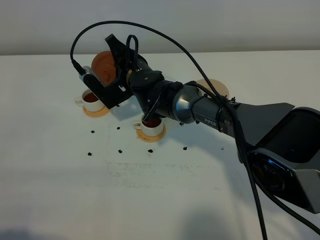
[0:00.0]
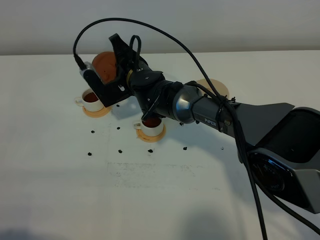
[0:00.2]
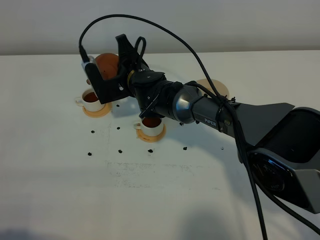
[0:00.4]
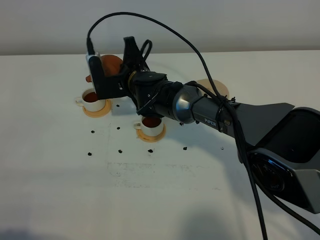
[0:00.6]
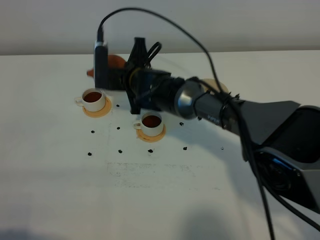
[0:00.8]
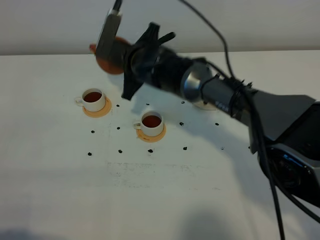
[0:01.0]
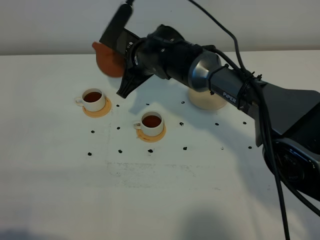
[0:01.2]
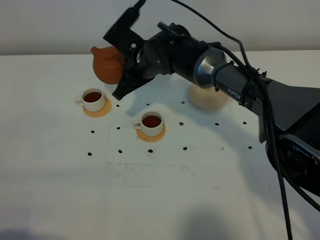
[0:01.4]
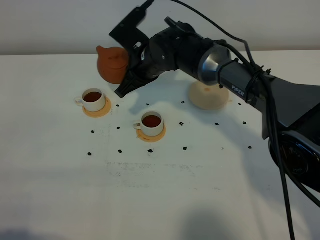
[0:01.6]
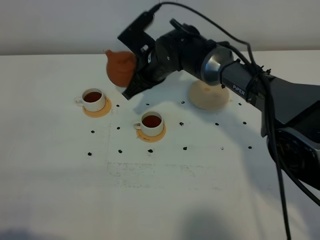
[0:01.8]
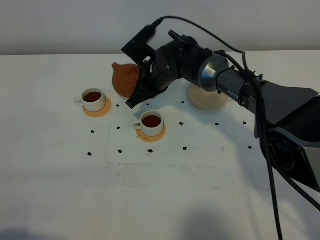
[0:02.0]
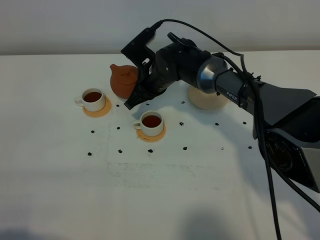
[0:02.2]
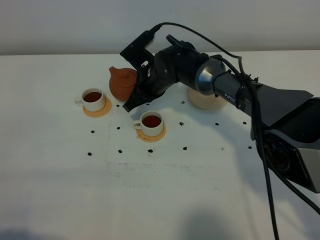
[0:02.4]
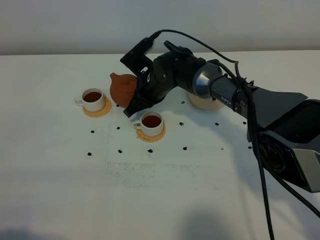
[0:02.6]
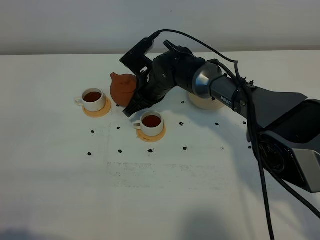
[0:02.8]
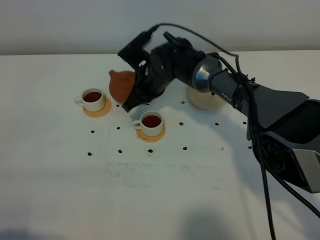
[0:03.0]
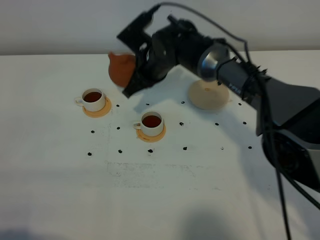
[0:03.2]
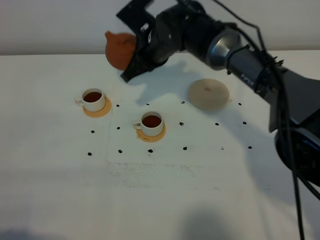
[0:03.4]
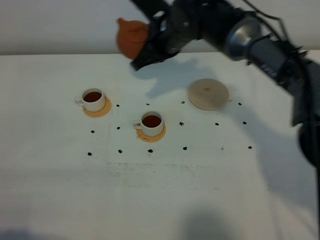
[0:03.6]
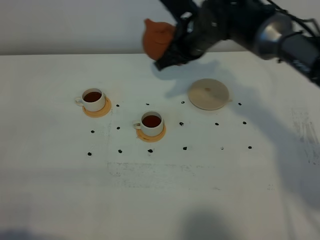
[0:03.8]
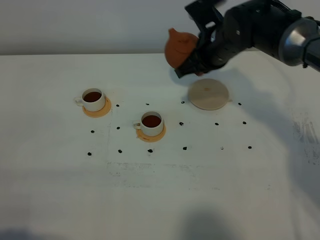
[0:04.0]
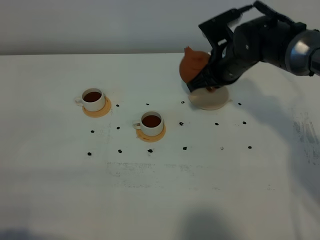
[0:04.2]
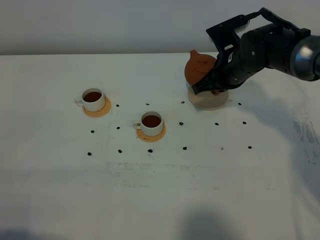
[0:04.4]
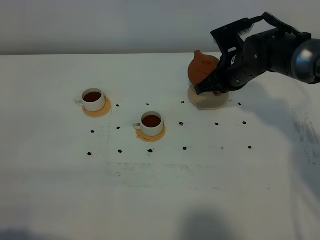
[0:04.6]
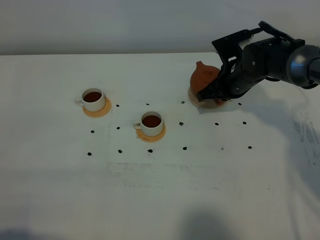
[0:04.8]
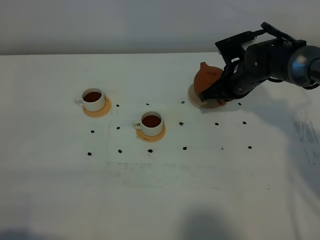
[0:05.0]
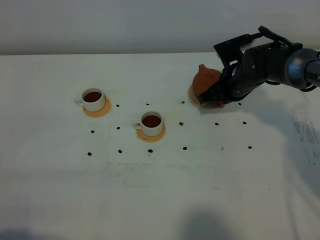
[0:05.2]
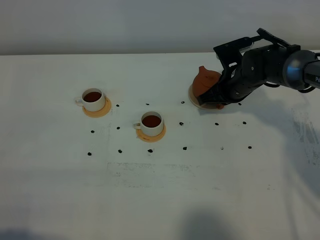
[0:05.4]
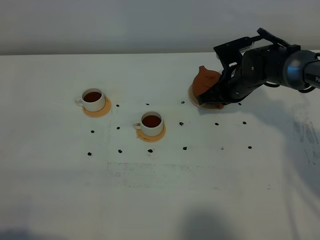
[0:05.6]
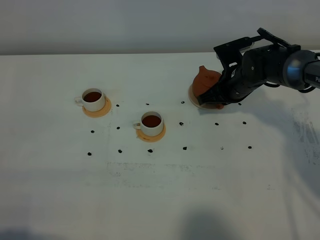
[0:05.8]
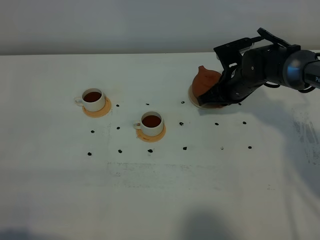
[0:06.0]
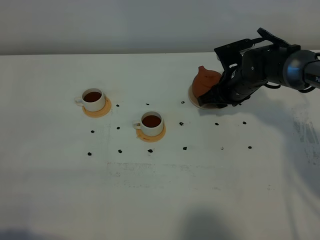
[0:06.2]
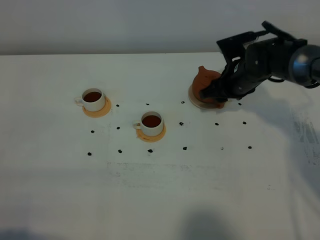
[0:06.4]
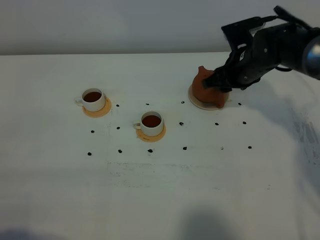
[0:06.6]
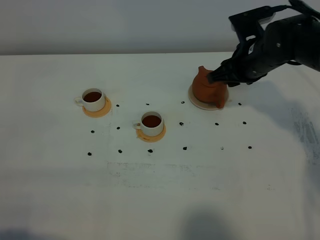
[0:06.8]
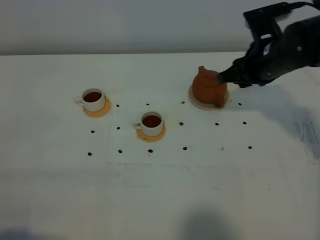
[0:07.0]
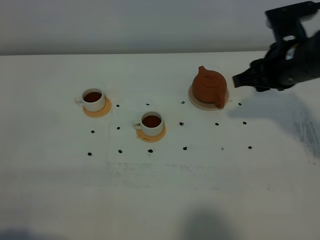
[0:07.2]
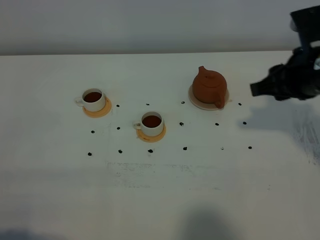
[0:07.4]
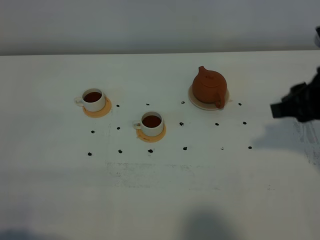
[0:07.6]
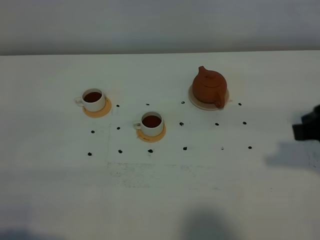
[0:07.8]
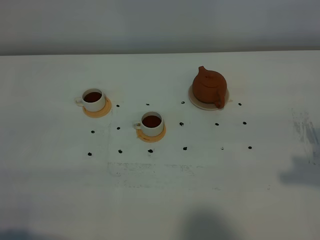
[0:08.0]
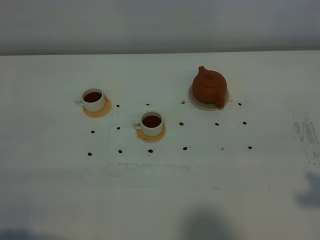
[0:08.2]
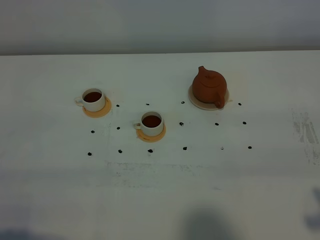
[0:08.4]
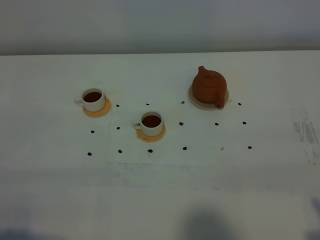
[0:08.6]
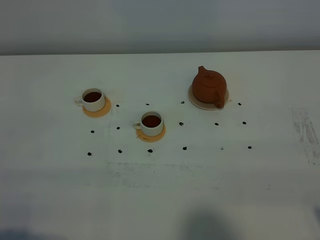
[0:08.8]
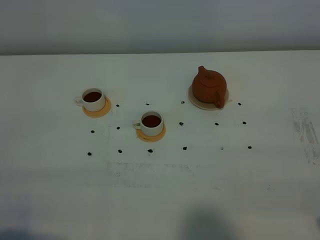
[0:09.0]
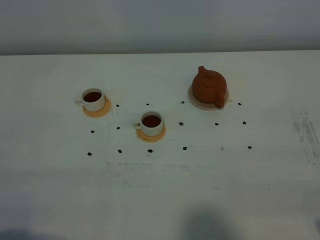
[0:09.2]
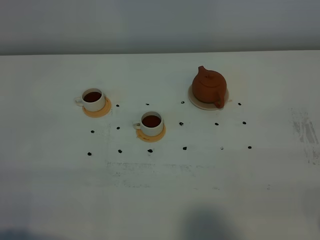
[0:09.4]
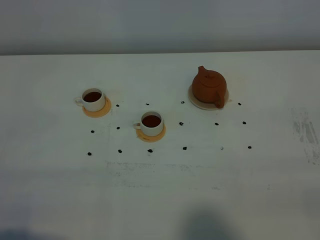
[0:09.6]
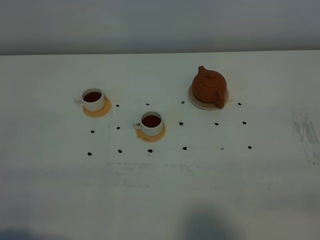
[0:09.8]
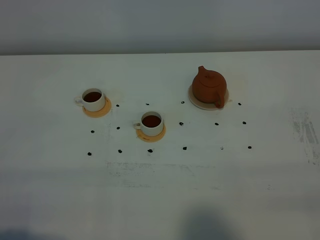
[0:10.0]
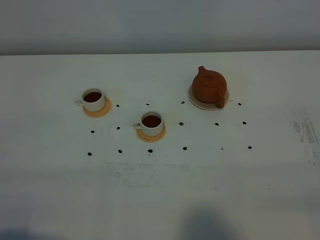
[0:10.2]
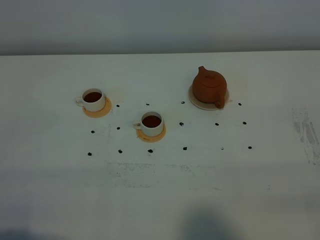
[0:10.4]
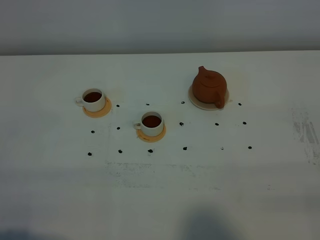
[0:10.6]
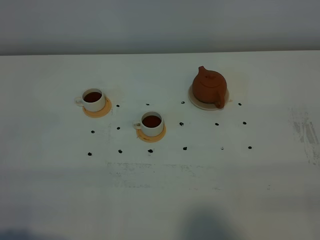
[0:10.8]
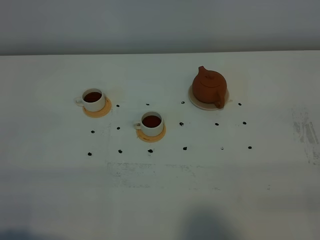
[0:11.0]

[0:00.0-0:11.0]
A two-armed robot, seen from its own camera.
Task of the whole recording: grasp the brown teapot and pour the tea into the two white teacups one by one, put the brown teapot back in its original place.
0:00.0 to 0:01.6: The right gripper shifts by approximately 5 cm.
0:03.2 to 0:04.8: The right gripper shifts about 15 cm to the right.
0:04.8 to 0:06.2: The right gripper opens.
0:06.2 to 0:07.8: The right gripper shifts approximately 30 cm backward, upward and to the right.
0:07.8 to 0:09.4: The right gripper moves backward, some 15 cm.

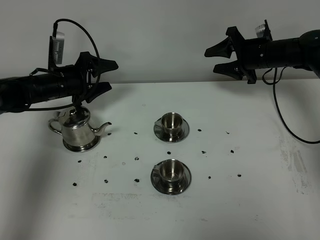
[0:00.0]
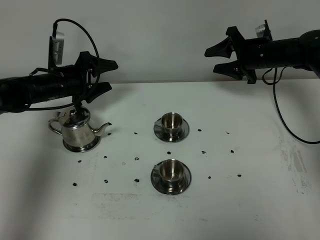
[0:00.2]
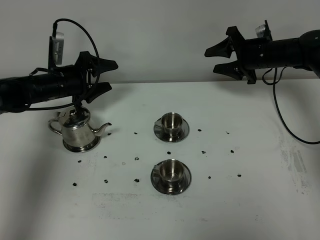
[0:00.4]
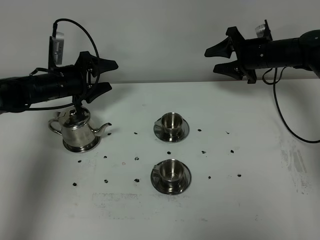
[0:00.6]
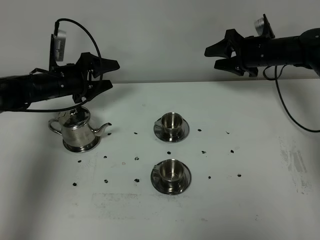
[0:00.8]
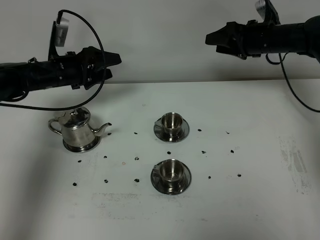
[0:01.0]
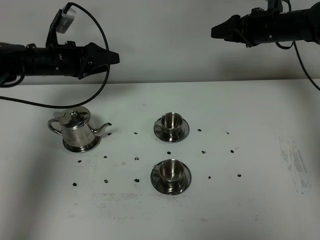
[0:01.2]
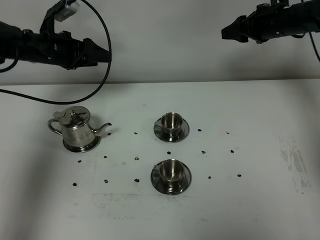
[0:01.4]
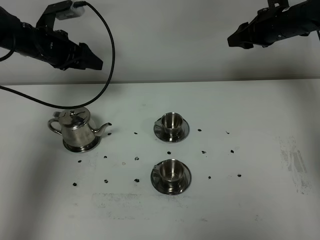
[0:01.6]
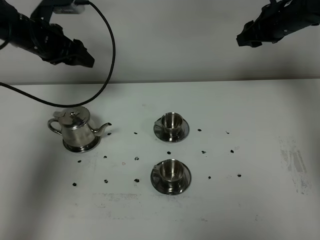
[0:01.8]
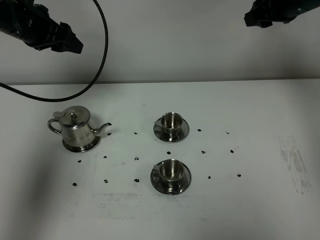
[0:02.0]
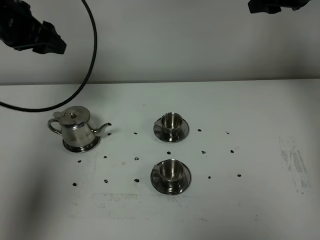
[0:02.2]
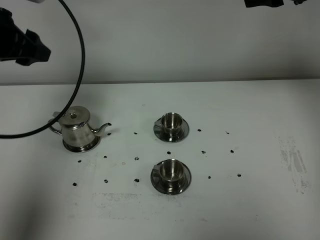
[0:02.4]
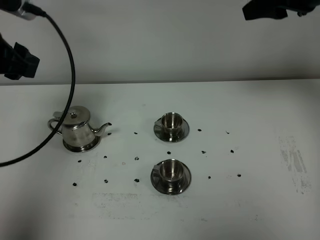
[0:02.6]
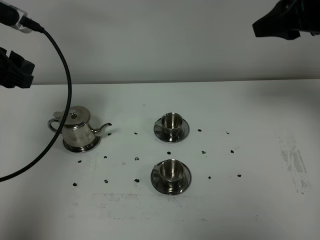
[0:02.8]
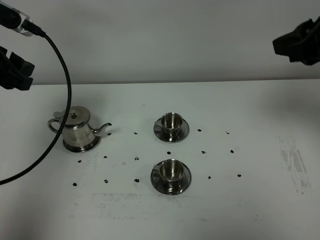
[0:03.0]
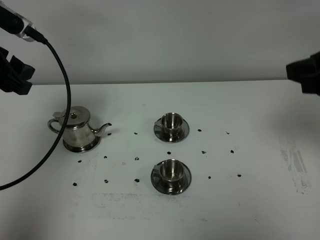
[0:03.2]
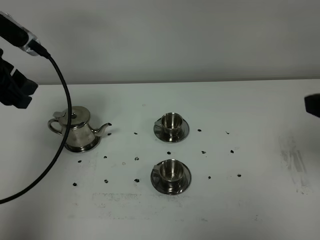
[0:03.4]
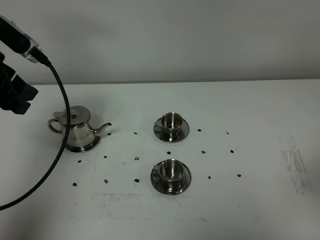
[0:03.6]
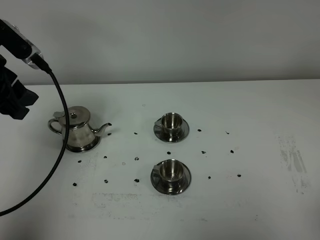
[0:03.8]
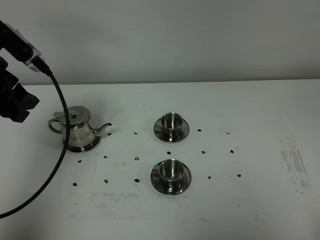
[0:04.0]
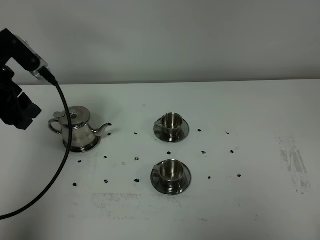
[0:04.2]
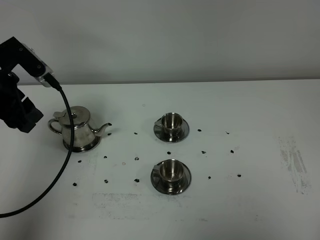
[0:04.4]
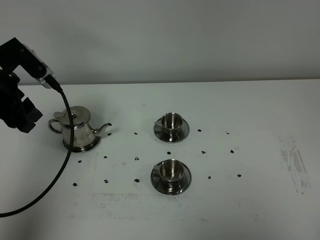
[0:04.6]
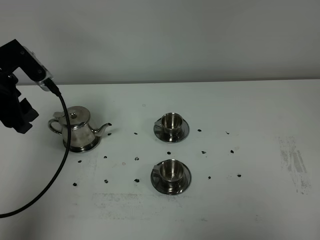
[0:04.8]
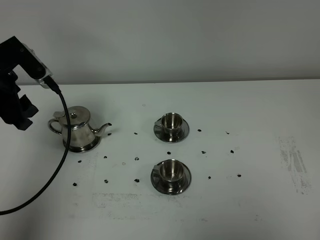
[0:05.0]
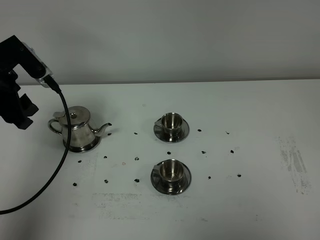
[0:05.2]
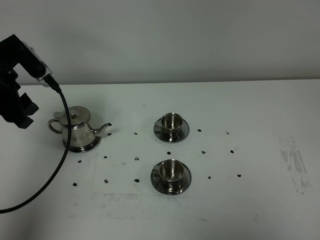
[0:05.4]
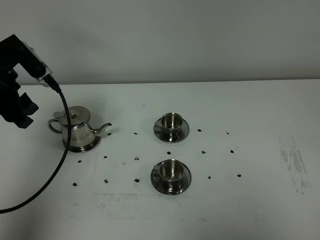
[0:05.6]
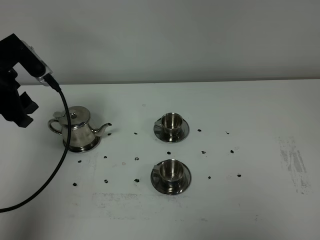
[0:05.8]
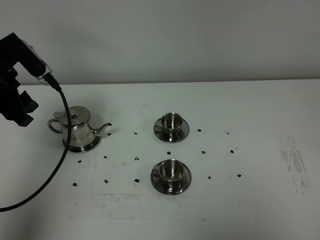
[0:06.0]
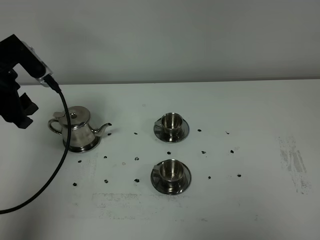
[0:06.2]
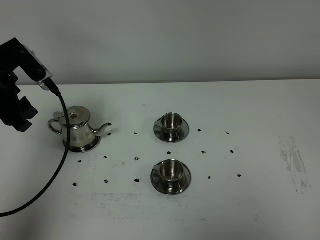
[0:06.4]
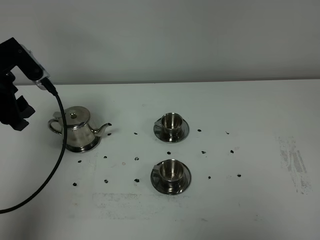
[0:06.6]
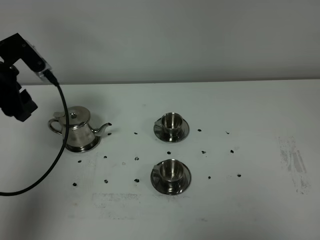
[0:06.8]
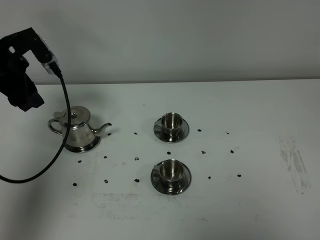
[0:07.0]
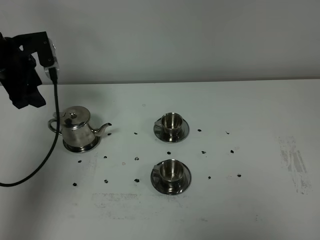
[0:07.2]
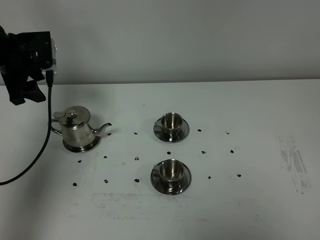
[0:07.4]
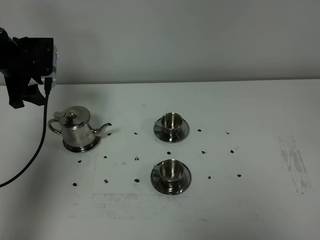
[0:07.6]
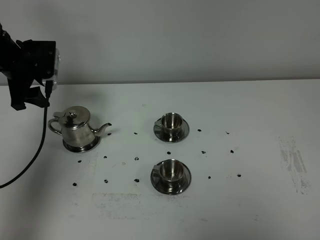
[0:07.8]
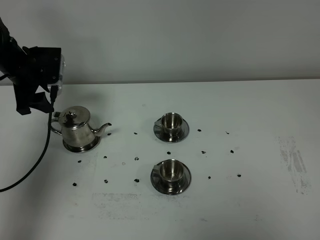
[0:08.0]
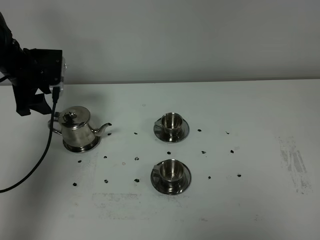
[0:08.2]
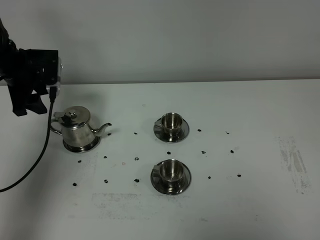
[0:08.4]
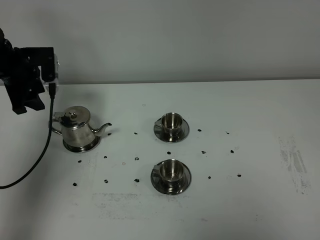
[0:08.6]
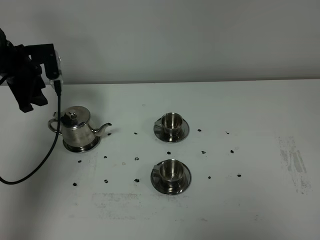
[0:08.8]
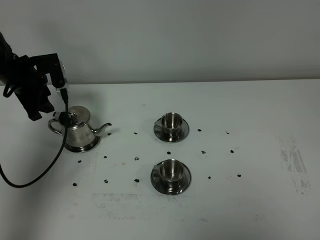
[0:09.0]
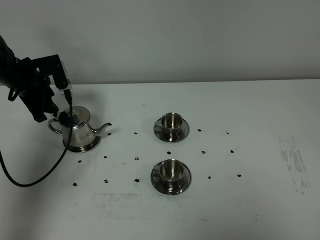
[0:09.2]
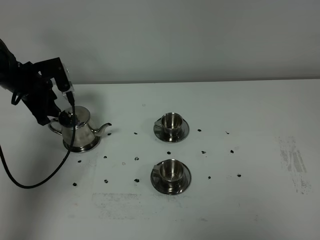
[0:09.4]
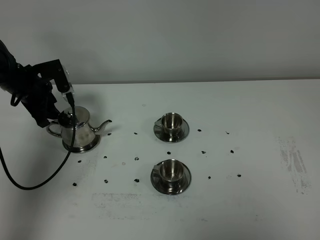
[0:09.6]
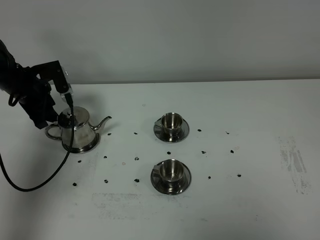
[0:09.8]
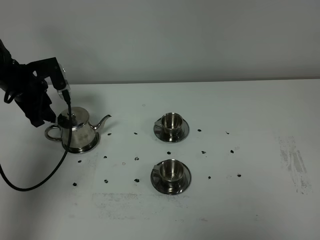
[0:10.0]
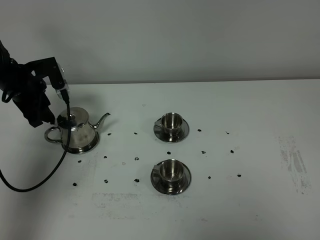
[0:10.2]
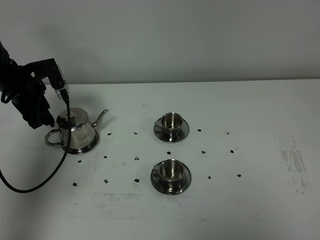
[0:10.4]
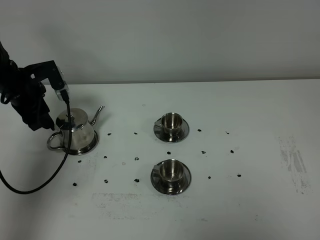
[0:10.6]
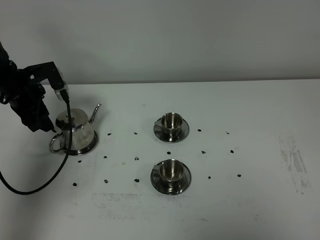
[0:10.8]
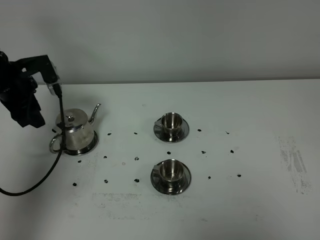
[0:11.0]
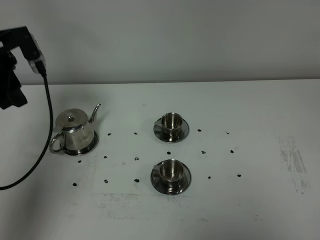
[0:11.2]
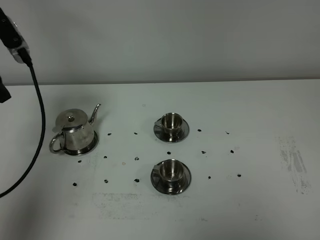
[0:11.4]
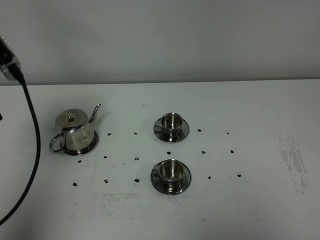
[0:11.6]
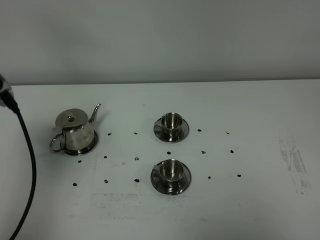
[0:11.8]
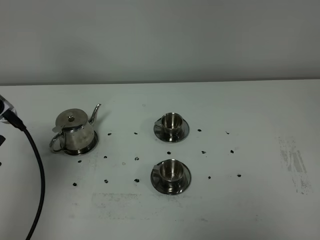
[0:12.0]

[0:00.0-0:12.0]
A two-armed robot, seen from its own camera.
Task of the whole recording: grasp the stainless steel teapot and pour the tea into the two stainless steel teacups one by one, put the stainless steel teapot back in its original place.
0:00.0 to 0:01.6: The right gripper is displaced upward by some 5 cm; the left gripper shifts some 10 cm upward.
0:01.6 to 0:03.0: Both grippers move backward and upward, roughly 25 cm.
0:03.0 to 0:04.4: The left gripper goes some 5 cm downward; the right gripper goes roughly 30 cm backward and downward.
0:06.0 to 0:07.6: The left gripper travels forward by approximately 10 cm.
0:07.6 to 0:09.0: The left gripper is displaced downward by roughly 5 cm.
0:09.0 to 0:10.4: The grippers make only small movements.
0:10.4 to 0:12.0: The left gripper is displaced backward and upward by about 25 cm.
